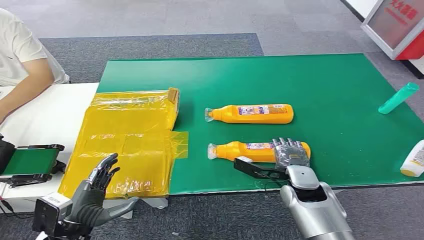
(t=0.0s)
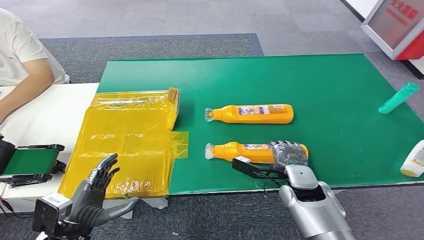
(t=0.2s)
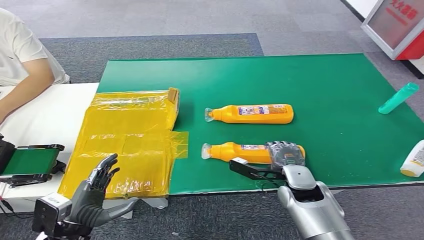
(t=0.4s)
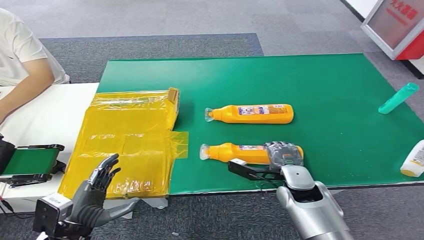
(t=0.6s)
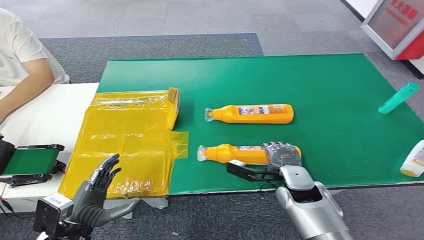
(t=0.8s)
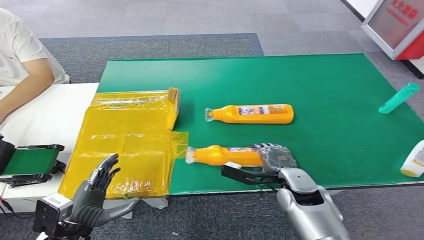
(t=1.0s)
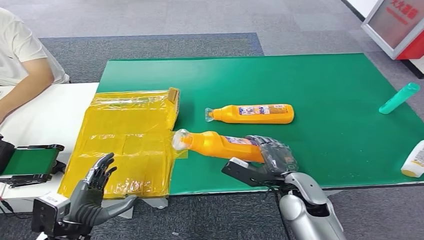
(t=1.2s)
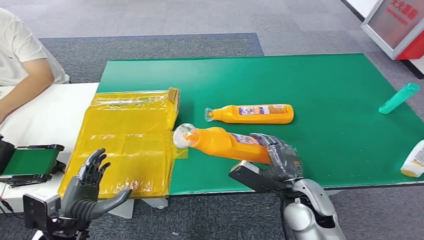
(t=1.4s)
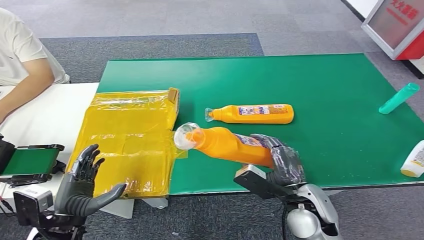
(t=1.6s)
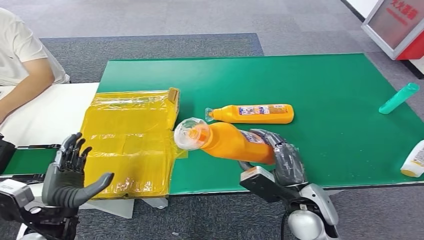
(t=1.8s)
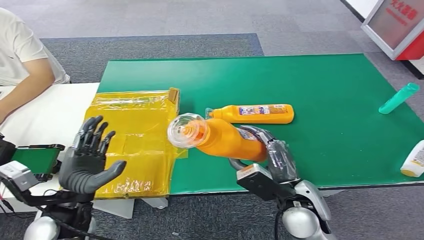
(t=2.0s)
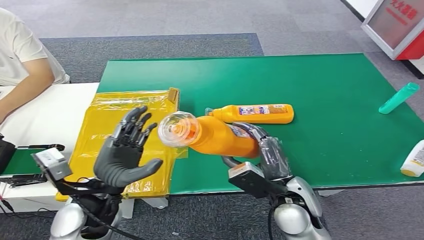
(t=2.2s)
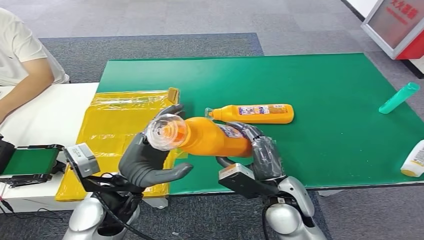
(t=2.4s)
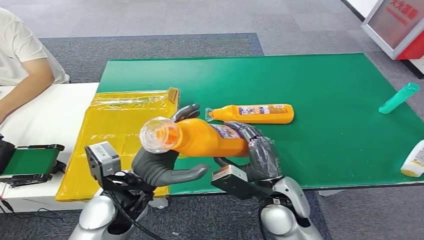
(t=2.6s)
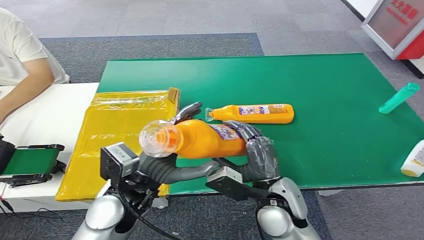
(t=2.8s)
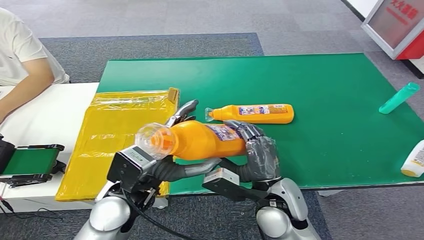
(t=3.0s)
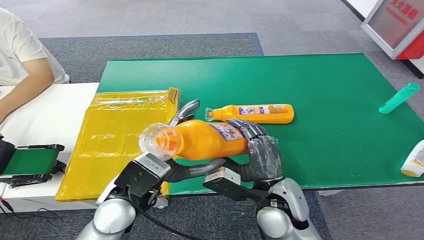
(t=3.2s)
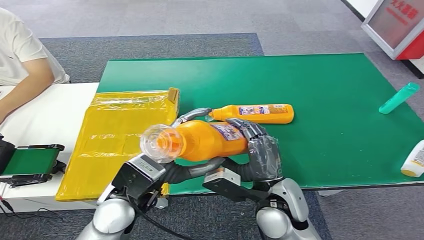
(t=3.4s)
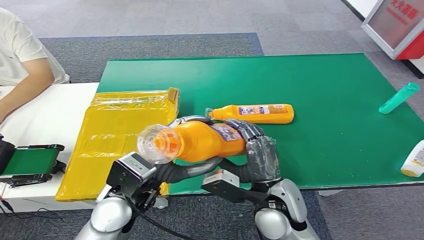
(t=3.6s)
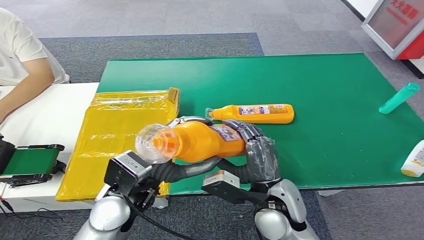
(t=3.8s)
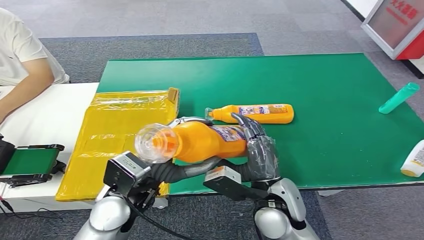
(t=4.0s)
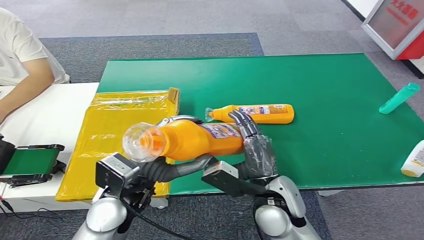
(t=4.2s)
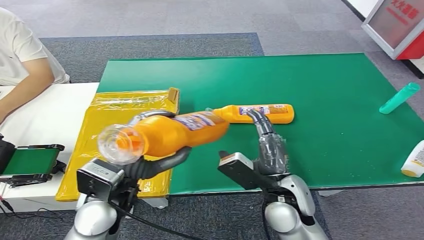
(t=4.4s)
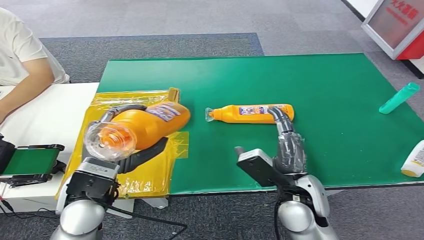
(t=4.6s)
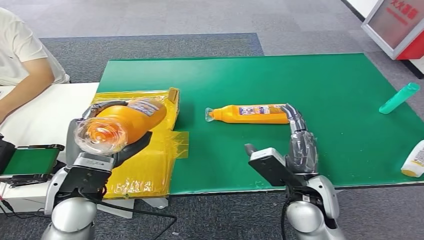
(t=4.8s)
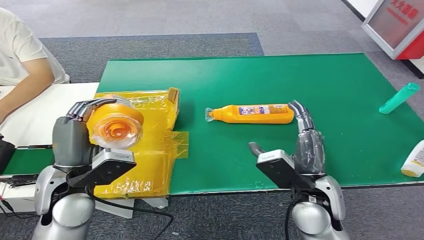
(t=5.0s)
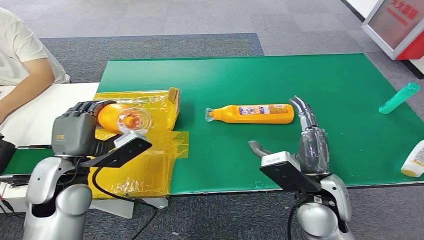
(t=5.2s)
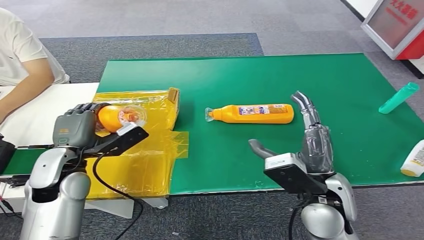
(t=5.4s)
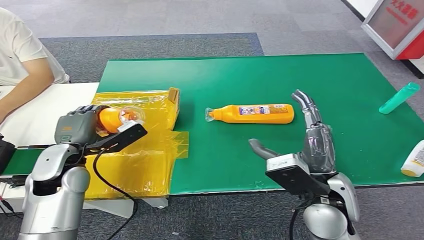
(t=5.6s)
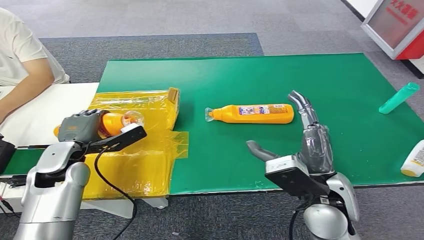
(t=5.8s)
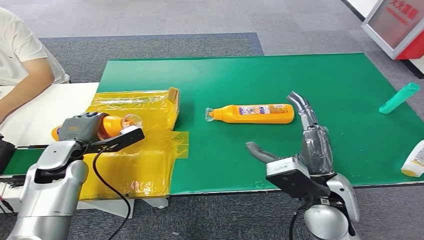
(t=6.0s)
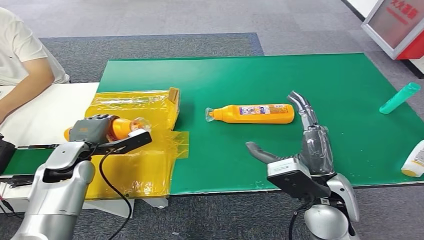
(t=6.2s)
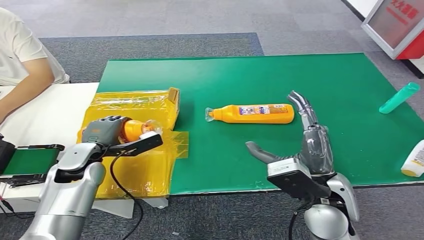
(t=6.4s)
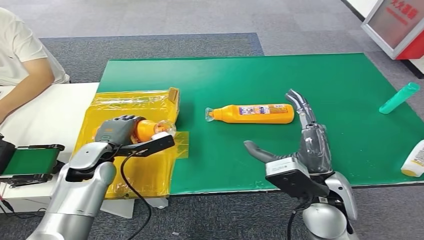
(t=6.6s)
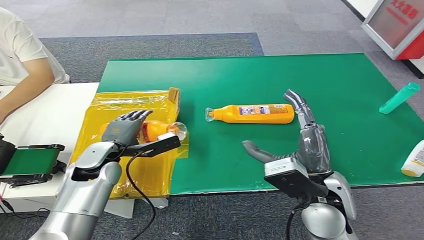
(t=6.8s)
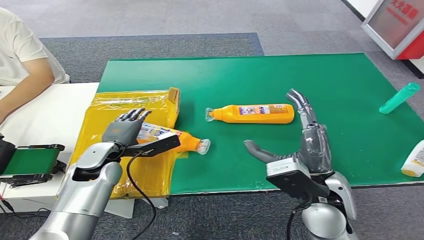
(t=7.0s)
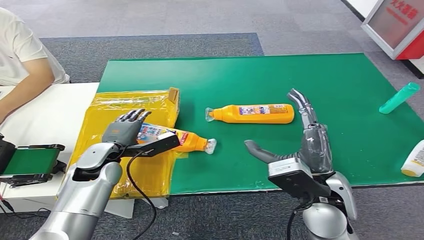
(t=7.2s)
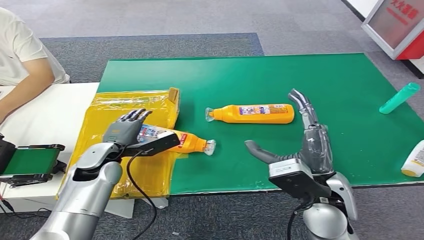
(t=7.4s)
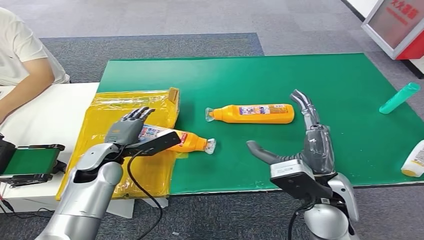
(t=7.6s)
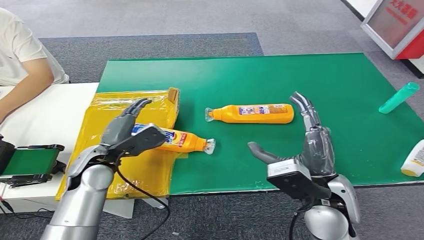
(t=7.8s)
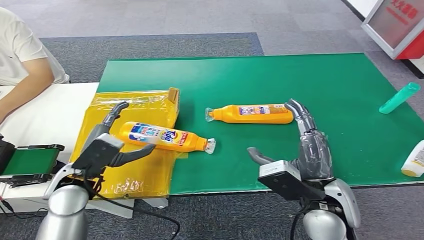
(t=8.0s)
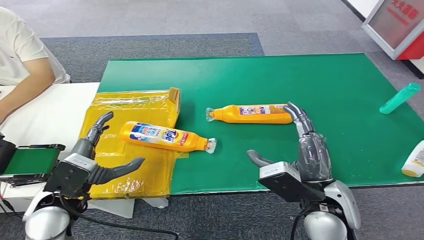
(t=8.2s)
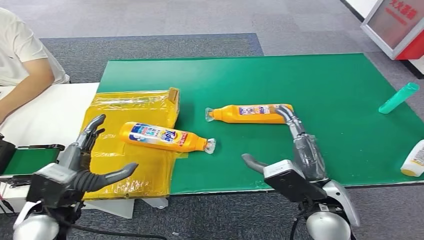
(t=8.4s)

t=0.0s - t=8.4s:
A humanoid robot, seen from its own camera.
Step, t=0.0s - t=1.8s: Pick up the bottle from the table.
Step, t=4.4s - t=8.4s: Turn the bottle to the front side.
t=1.4s - t=2.8s: The left hand heads to the right, upward and forward, covering about 20 cm; the right hand travels to the left by approximately 5 cm.
t=2.8s - t=4.2s: The hands move only a little.
t=5.6s - t=7.0s: The left hand goes about 5 cm downward.
t=7.0s - t=8.4s: The left hand moves backward, approximately 15 cm.
